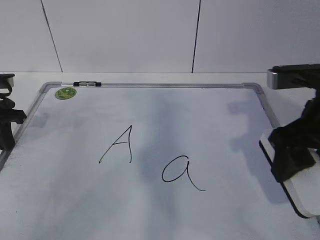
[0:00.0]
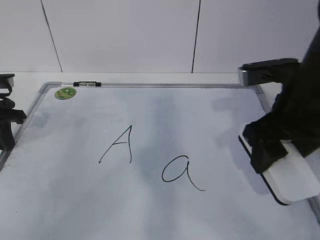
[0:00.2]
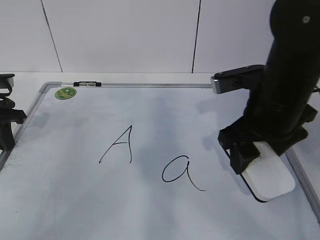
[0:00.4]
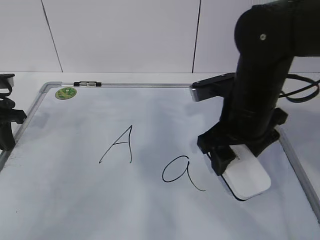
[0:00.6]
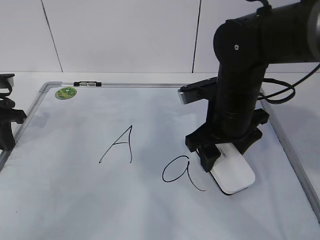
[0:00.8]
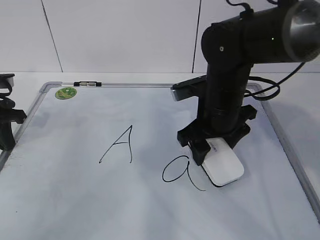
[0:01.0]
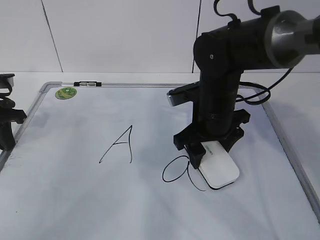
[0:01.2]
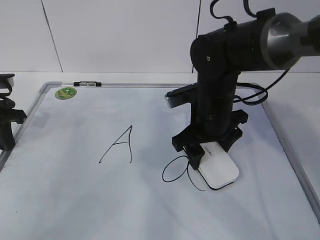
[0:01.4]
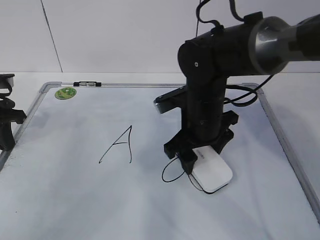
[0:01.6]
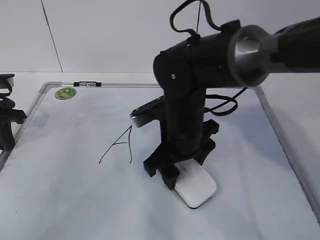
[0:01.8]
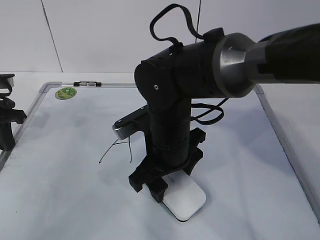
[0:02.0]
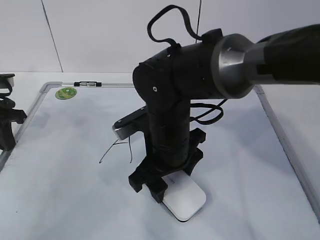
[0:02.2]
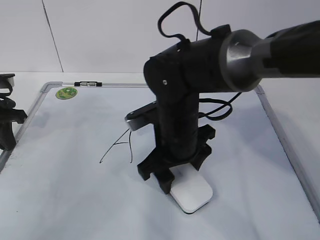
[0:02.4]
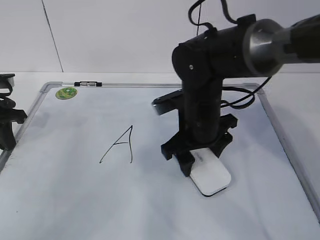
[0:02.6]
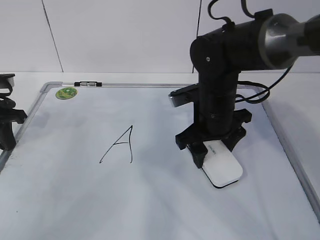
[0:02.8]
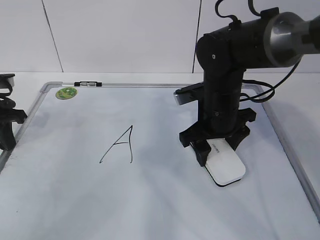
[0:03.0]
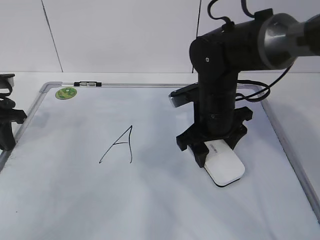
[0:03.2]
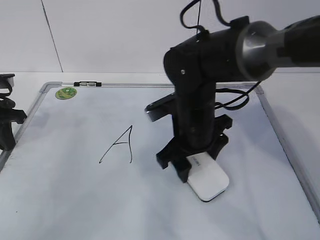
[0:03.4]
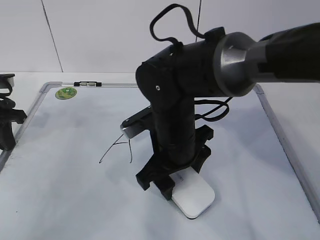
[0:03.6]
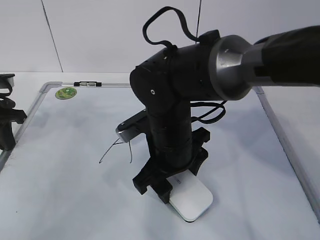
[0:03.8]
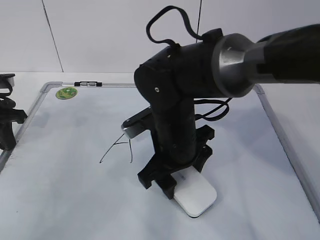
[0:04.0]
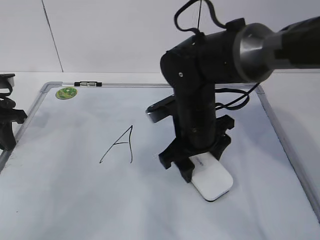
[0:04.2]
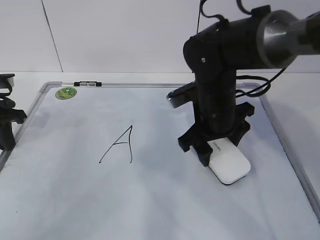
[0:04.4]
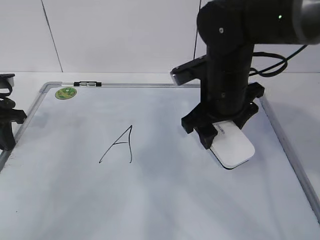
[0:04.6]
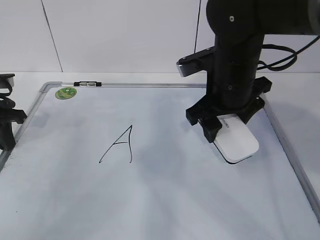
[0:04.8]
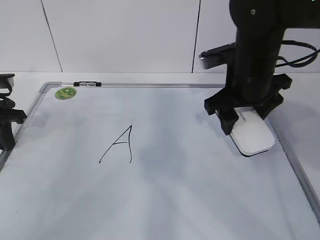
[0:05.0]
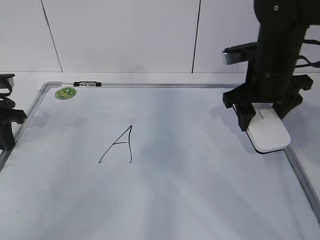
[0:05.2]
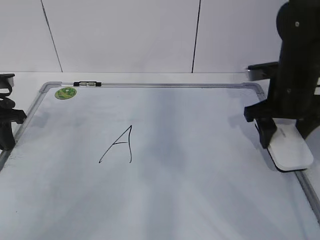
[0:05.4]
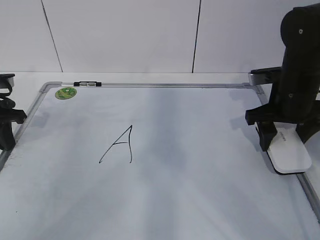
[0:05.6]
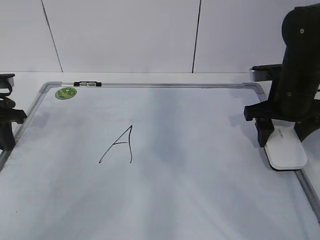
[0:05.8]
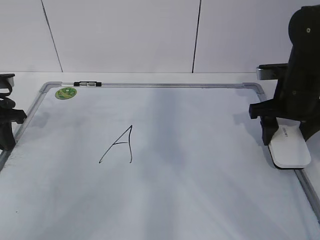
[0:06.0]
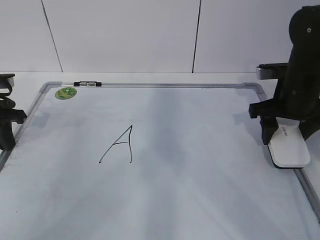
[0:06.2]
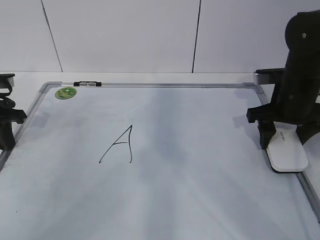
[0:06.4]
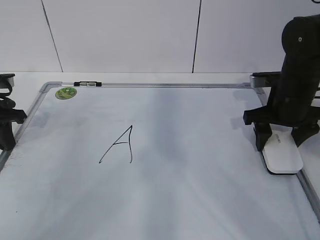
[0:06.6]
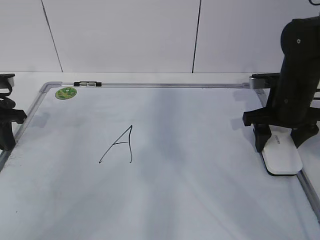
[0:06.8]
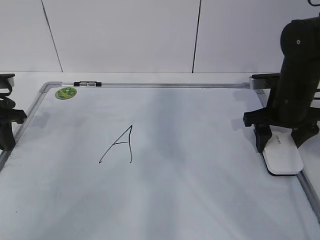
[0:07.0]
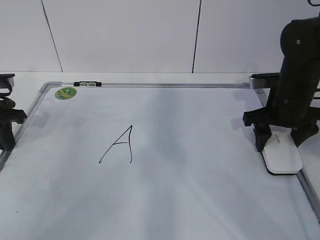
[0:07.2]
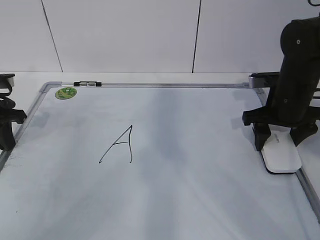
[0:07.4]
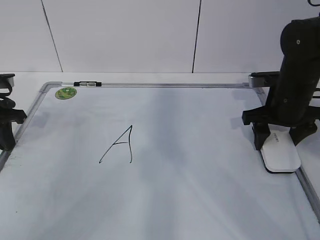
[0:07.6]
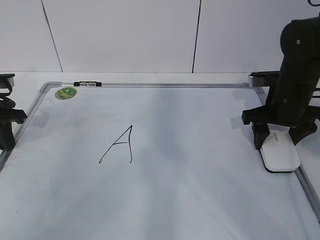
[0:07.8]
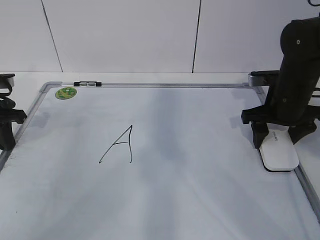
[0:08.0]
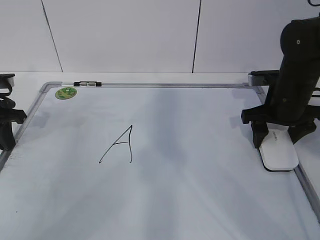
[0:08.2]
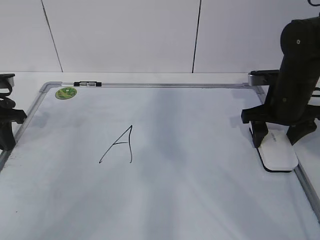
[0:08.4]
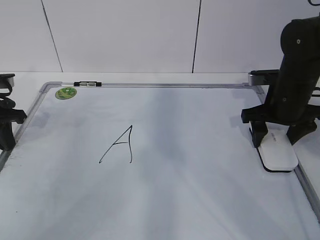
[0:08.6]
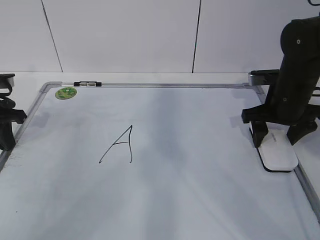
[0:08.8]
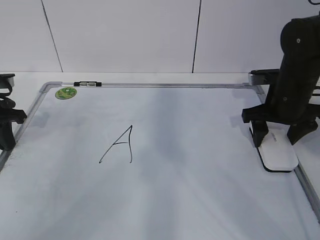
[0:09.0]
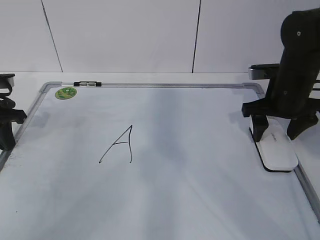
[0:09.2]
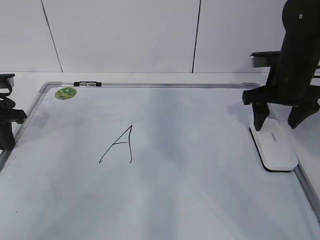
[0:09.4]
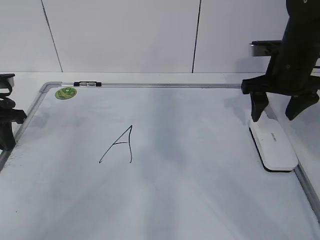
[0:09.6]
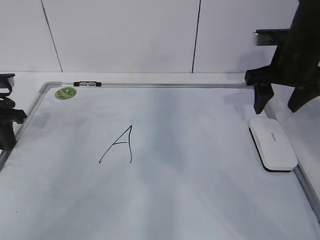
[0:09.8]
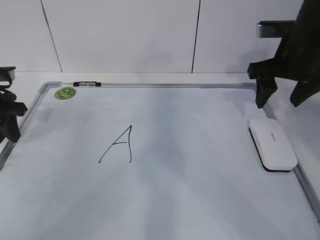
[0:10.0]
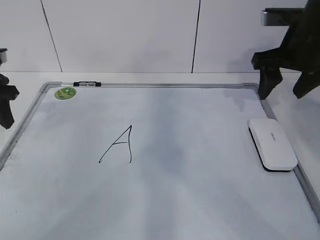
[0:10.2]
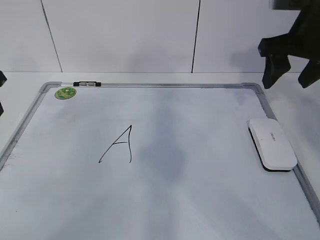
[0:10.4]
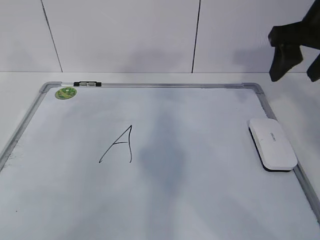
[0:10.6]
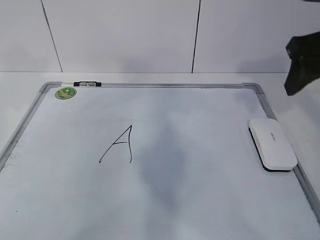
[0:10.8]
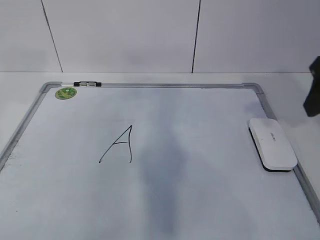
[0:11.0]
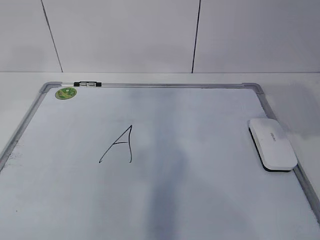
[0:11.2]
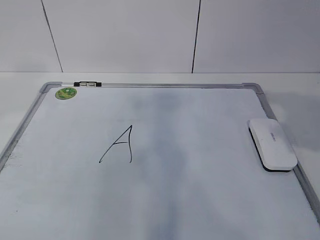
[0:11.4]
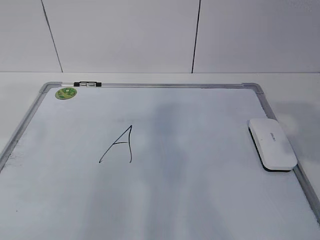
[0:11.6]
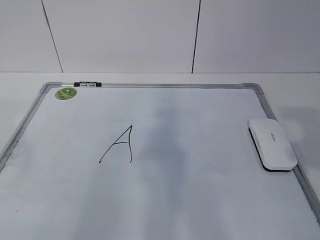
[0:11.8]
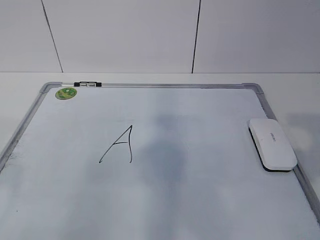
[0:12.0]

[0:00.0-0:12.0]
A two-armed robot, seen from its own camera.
Task of the whole recording: pick up the eraser on the blackboard and erase the letter "a".
Step, 0:00.0 to 0:03.2: Put down the eraser with your right hand.
0:00.0 to 0:01.6: The right gripper moves to the left, forward and downward, approximately 20 cm.
0:03.0 to 0:04.4: The right gripper moves some 10 cm to the left and comes back.
0:04.4 to 0:06.0: The right gripper heads to the right, covering roughly 15 cm.
0:06.0 to 0:07.6: The grippers move only a little.
0:07.6 to 0:09.0: The right gripper opens its fingers.
0:09.0 to 0:10.4: Both grippers travel together upward, approximately 10 cm. The left gripper opens its fingers.
0:10.4 to 0:12.0: Both grippers travel together backward, approximately 25 cm. The left gripper opens.

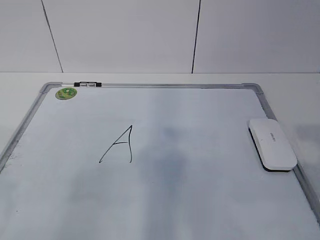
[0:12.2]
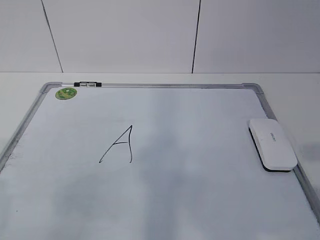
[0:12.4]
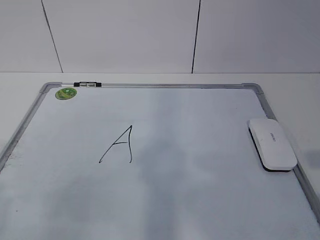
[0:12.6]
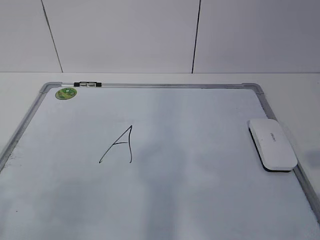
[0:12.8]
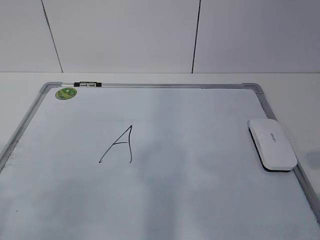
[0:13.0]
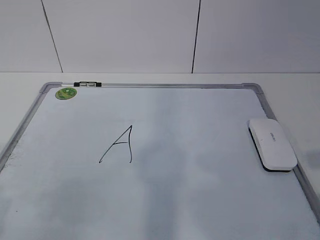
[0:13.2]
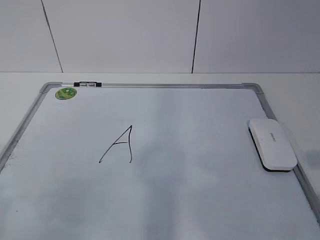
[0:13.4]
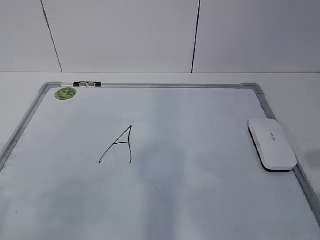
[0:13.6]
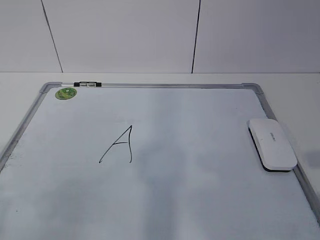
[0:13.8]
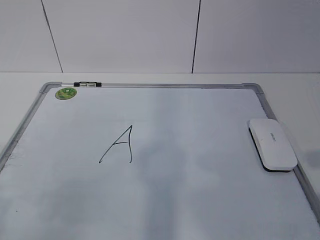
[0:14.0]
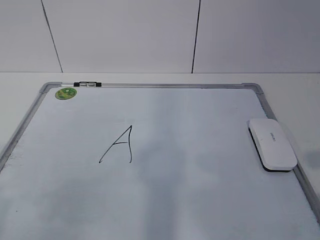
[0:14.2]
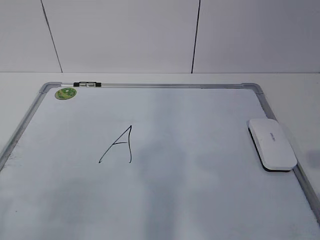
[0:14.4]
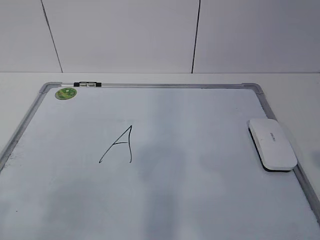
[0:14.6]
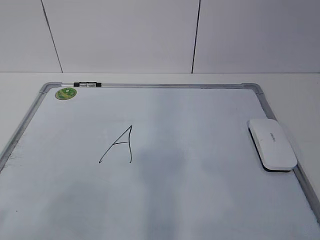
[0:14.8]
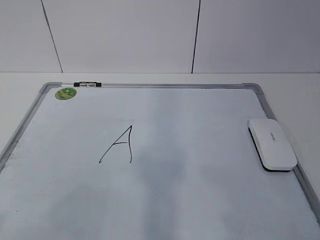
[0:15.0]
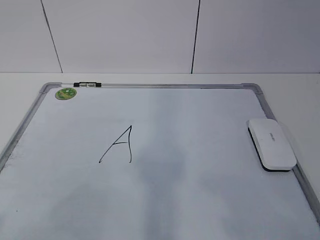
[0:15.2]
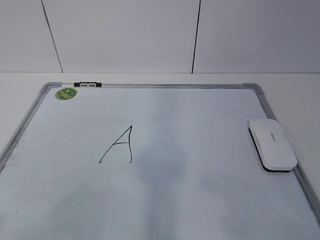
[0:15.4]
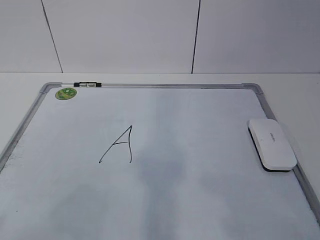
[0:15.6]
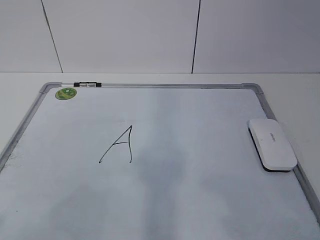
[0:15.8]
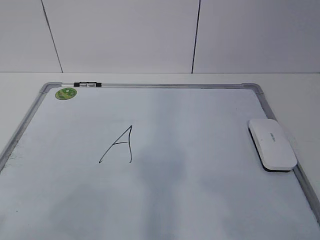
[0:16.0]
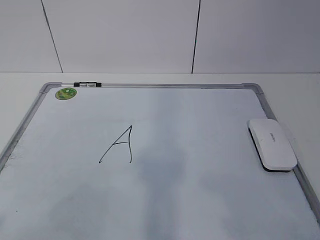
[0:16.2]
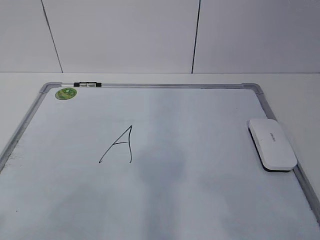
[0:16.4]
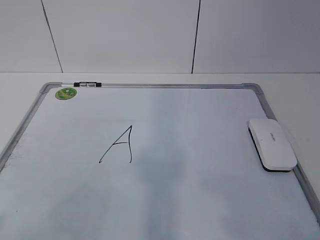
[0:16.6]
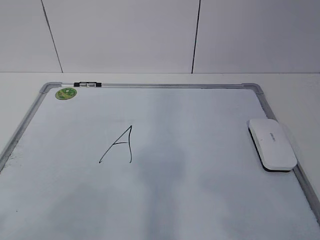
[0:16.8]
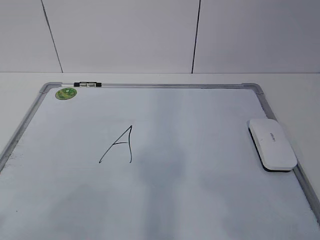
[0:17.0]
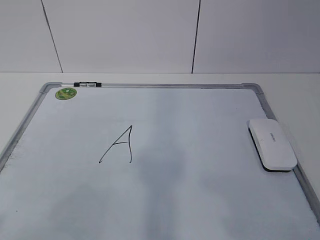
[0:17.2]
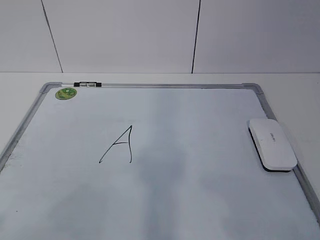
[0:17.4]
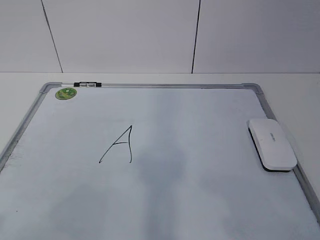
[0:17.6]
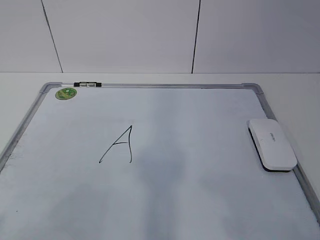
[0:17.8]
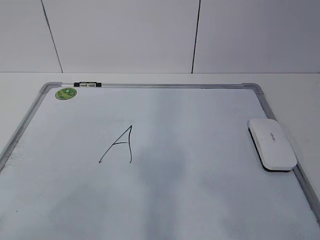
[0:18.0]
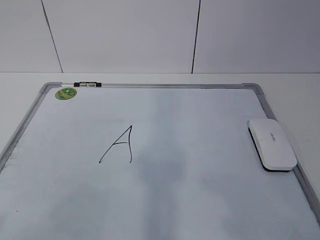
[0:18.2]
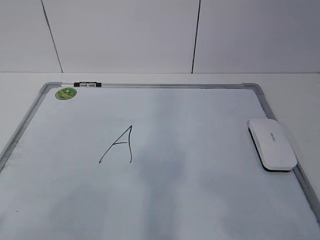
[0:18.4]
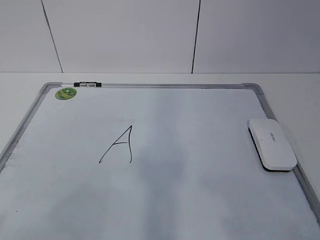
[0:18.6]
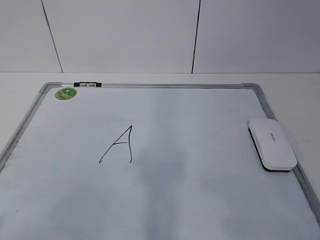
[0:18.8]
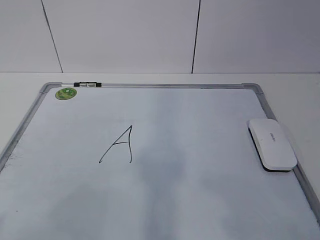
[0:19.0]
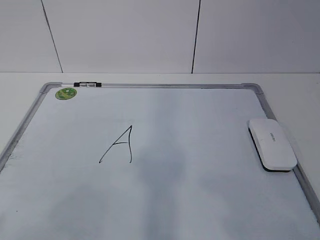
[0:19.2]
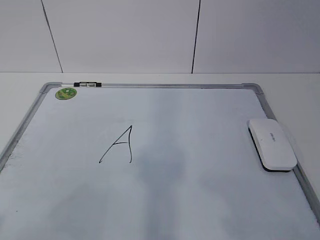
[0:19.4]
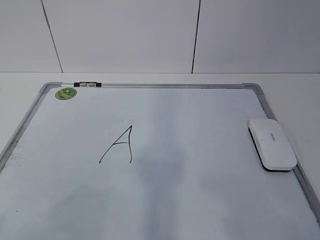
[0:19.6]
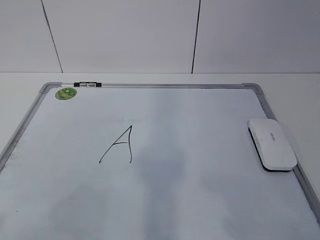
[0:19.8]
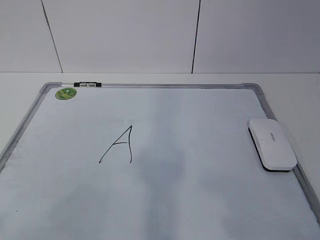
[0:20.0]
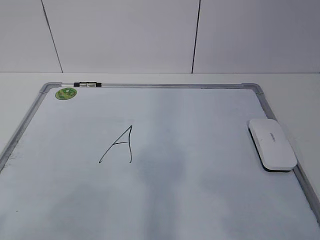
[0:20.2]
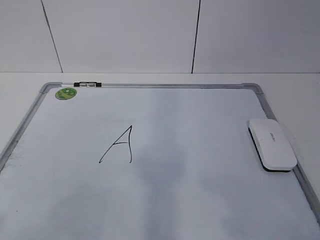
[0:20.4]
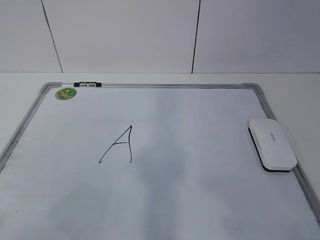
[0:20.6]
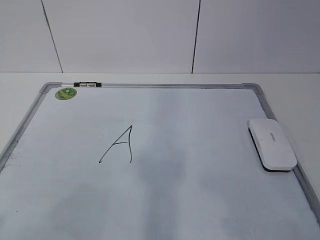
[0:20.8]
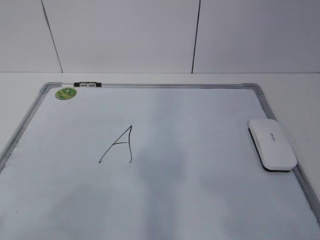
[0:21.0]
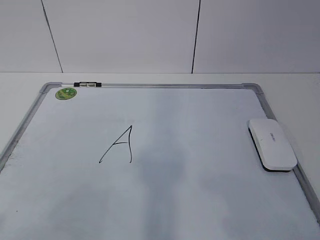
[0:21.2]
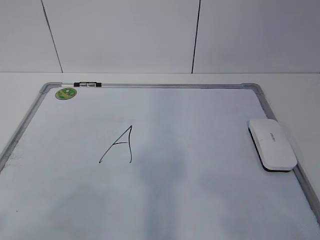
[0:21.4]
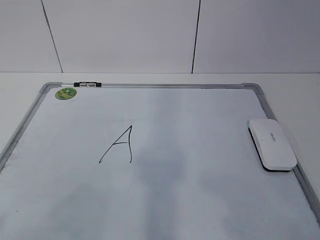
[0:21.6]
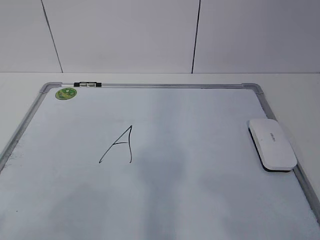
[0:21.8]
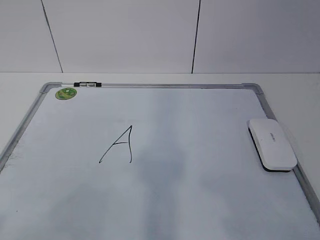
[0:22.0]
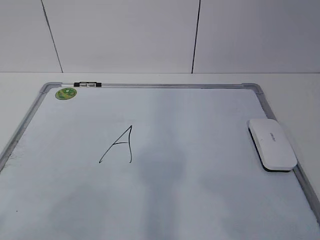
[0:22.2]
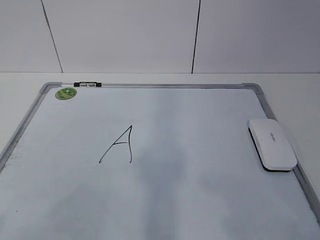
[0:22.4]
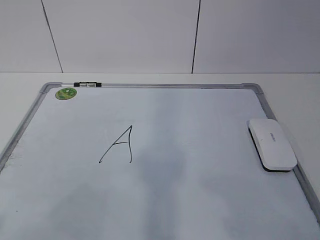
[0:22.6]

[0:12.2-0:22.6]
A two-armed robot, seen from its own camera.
Task of the whole recording: pick up the eraser on the blackboard and erase the letter "a".
0:12.2 to 0:13.6: The left gripper goes approximately 5 cm downward.
0:15.2 to 0:22.6: The two grippers keep their place.
